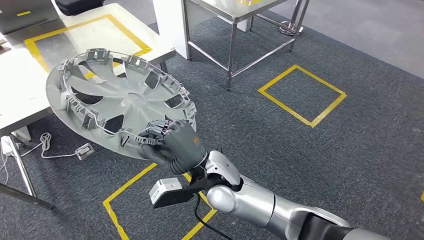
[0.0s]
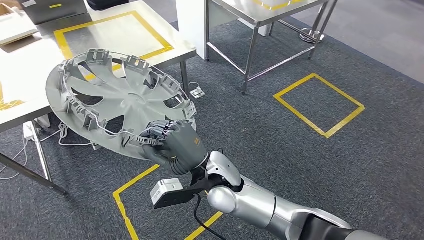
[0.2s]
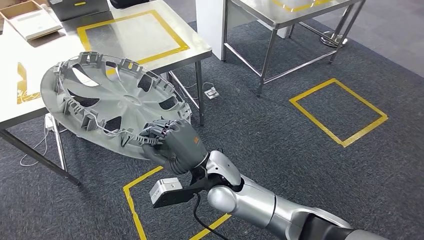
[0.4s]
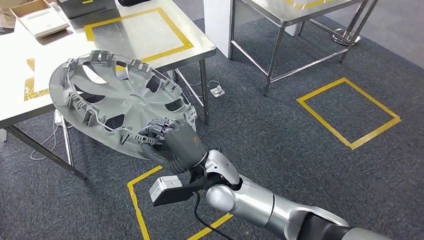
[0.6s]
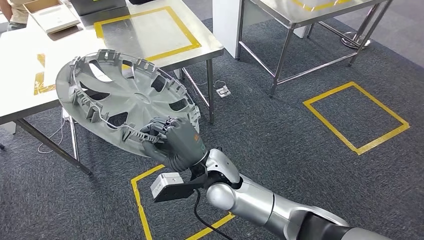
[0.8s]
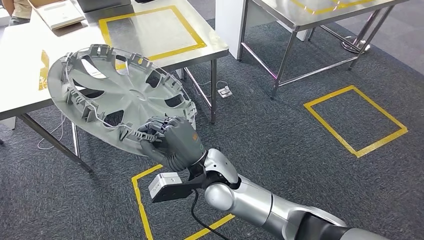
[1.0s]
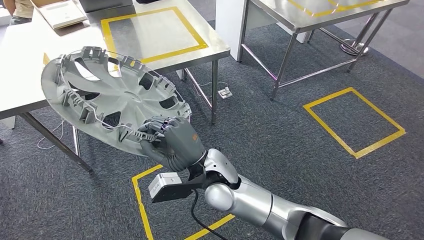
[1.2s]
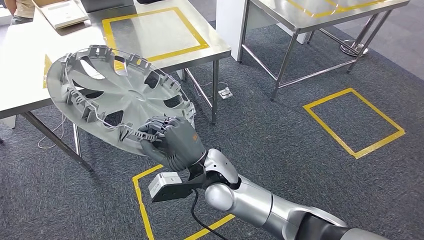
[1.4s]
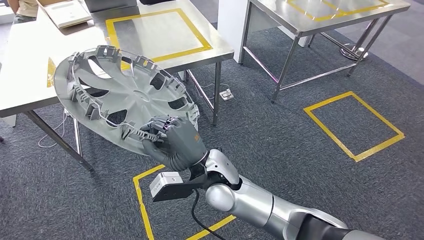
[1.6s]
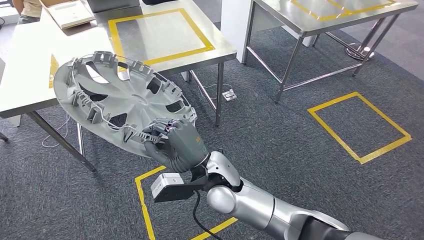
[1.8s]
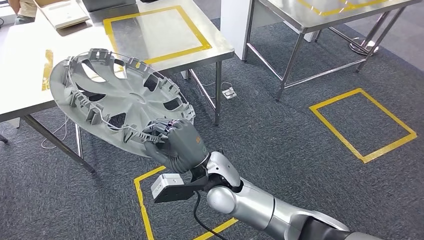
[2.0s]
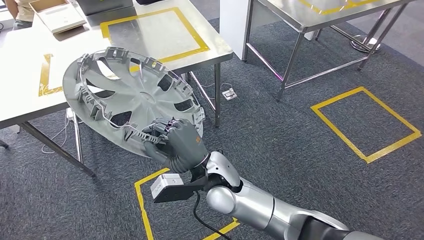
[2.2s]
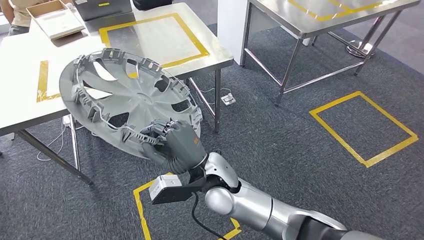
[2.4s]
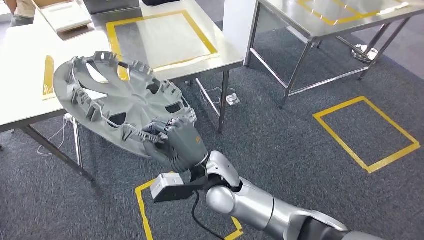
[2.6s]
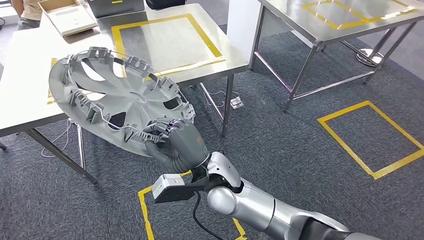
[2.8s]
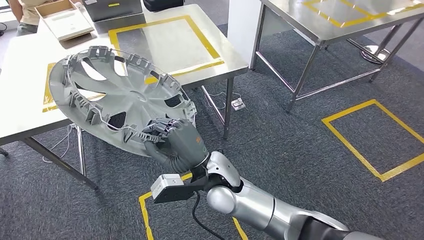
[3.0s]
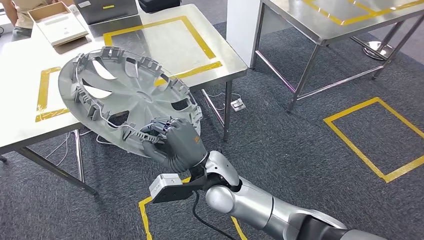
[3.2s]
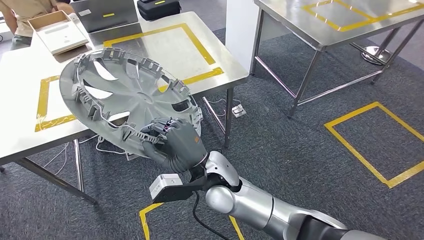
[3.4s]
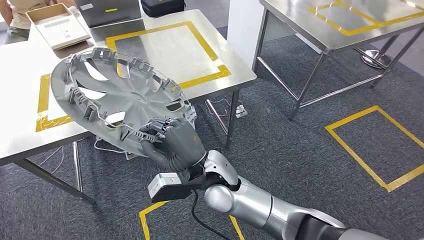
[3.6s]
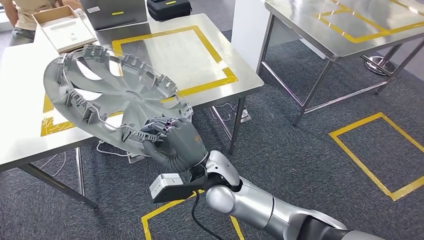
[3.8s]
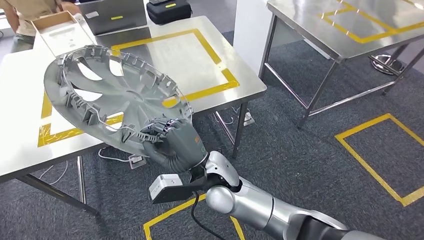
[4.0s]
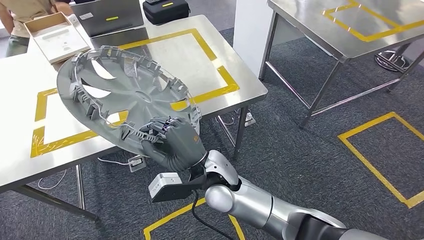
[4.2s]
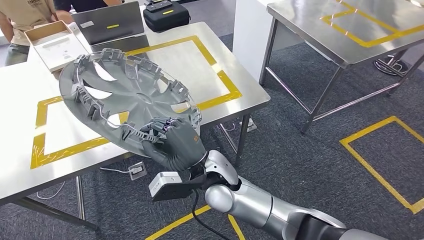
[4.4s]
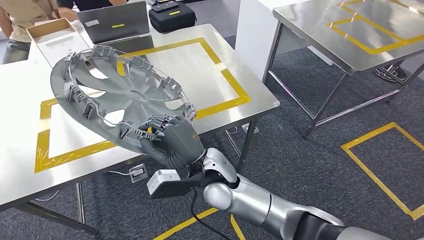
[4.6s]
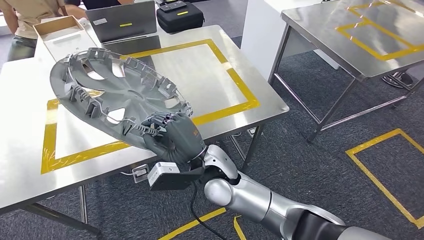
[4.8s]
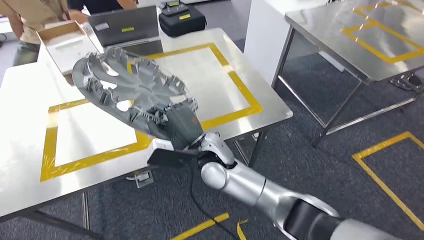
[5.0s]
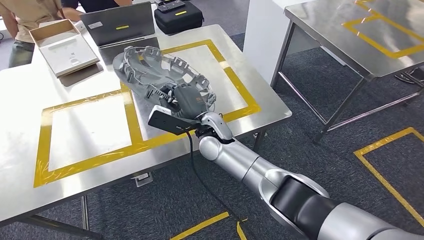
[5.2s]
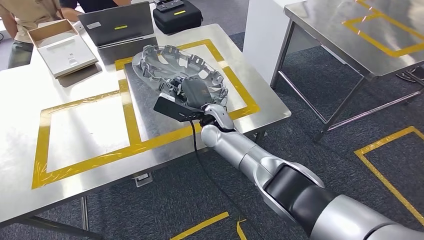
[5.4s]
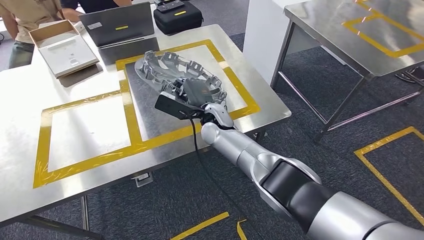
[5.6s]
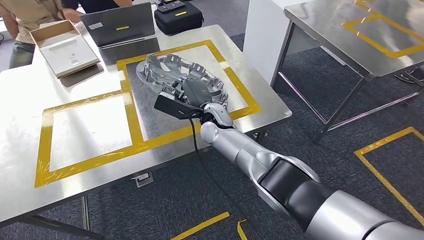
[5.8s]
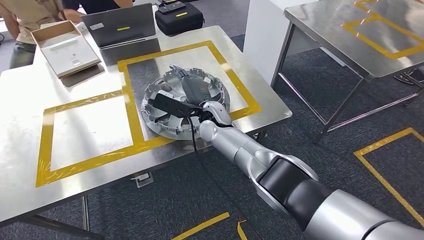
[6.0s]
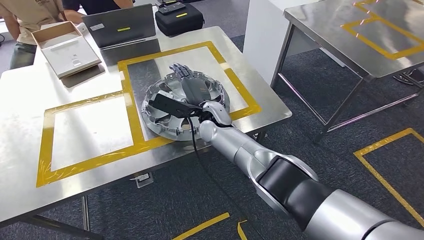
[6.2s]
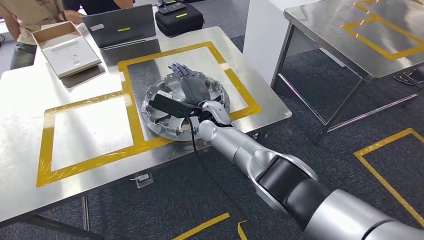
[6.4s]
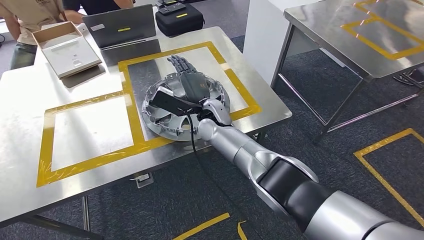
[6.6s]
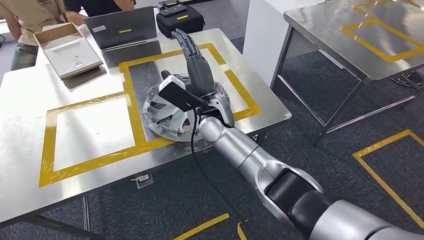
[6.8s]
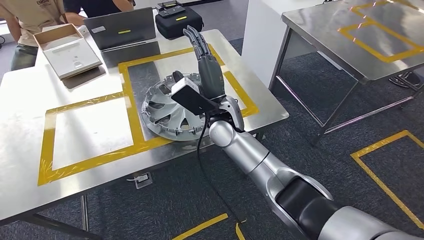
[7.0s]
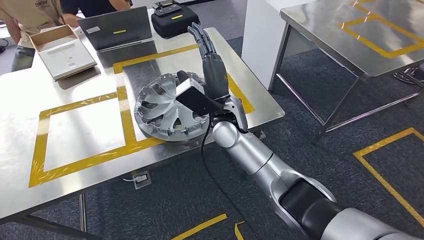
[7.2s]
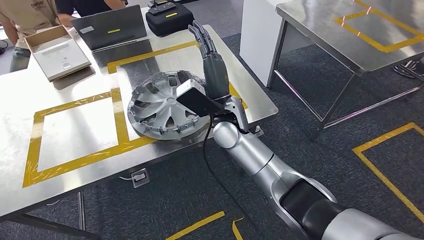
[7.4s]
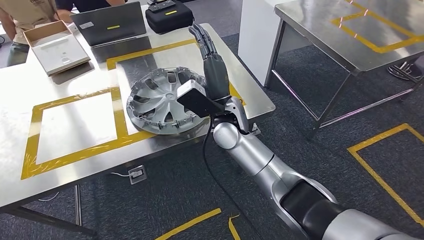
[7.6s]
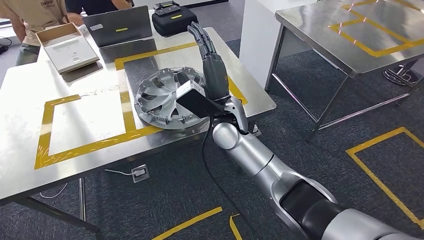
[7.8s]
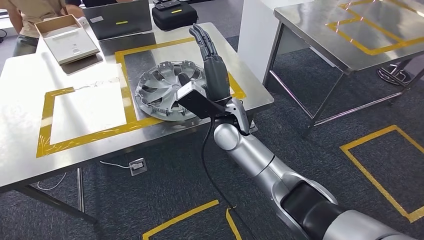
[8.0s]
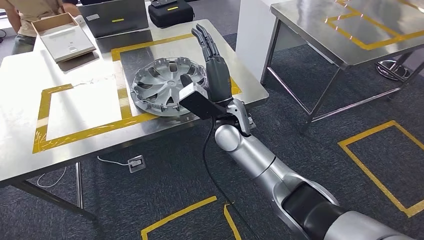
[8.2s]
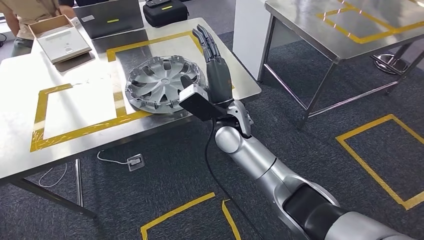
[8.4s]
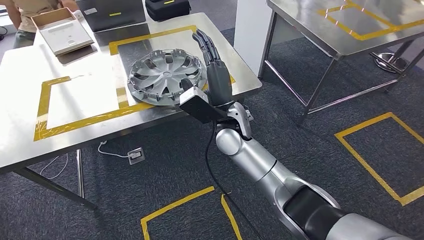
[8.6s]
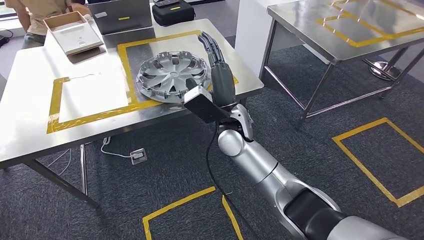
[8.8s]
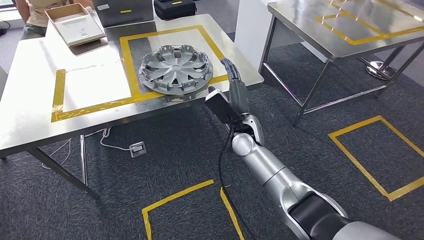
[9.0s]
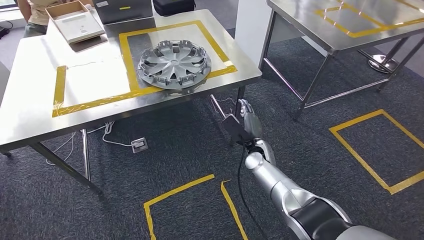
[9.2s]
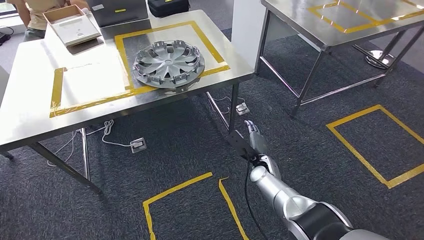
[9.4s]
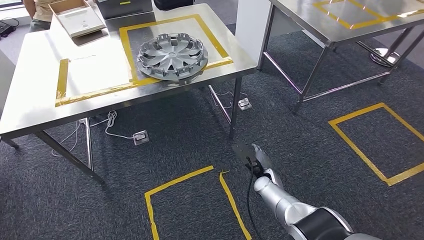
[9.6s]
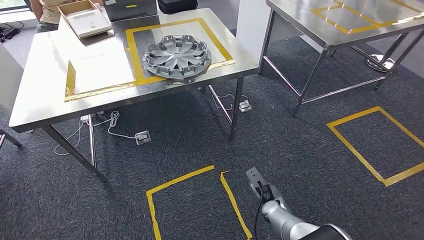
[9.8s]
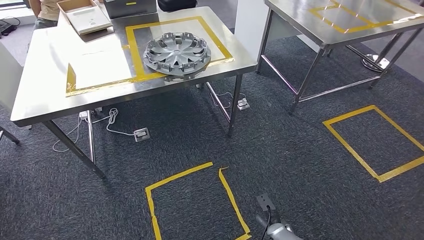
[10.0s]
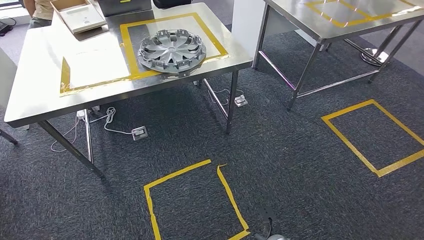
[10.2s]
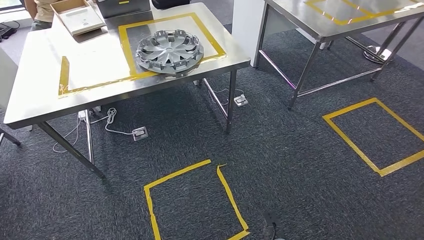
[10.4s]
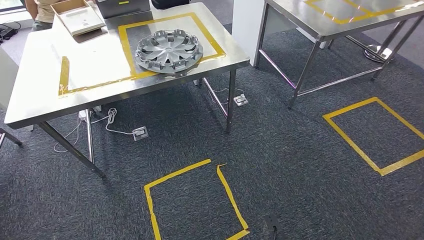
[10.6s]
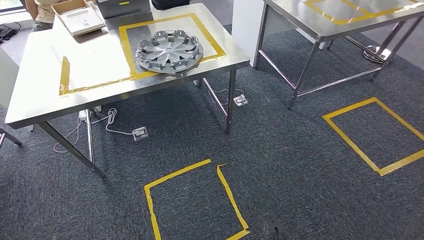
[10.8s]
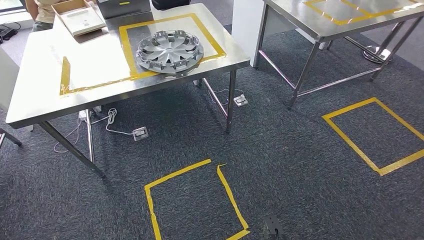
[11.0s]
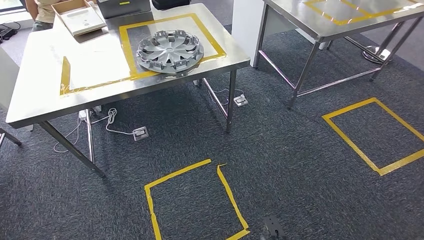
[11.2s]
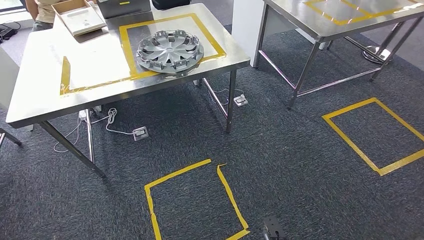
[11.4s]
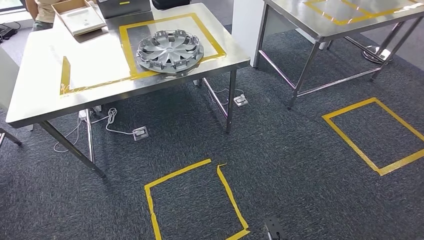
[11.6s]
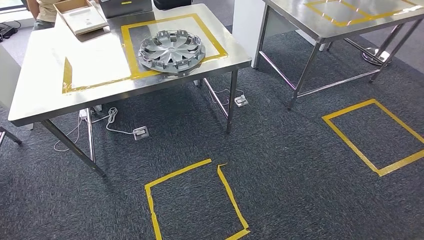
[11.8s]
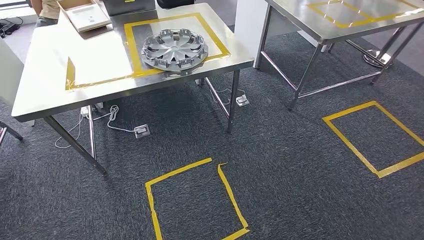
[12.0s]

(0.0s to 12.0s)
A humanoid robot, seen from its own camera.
Step, 0.0s - 4.6s: Move the small component to the workbench.
Step, 4.8s - 7.0s: Insert the small component into the corresponding slot on the workbench.
Step, 7.2s - 11.8s: Return to the initial position at the workbench.
10.4s - 12.0s: The right hand heads backward, covering some 20 cm. Meanwhile the left hand moves forward, some 10 cm.
